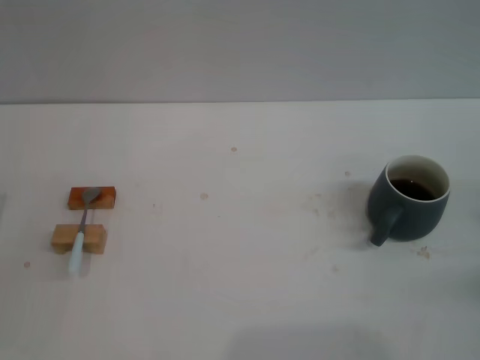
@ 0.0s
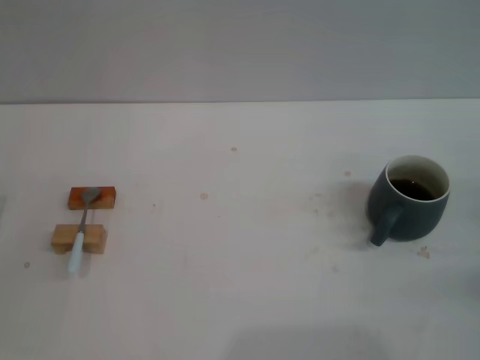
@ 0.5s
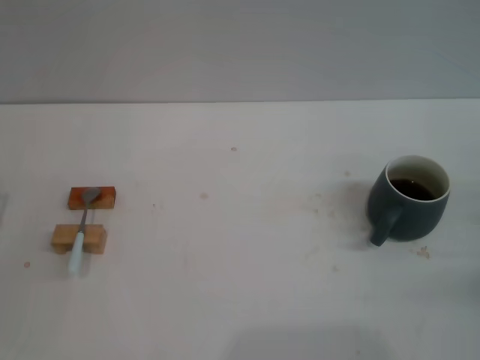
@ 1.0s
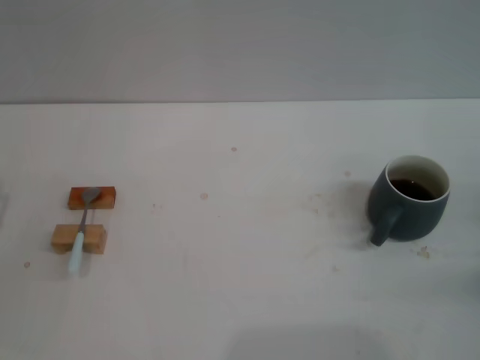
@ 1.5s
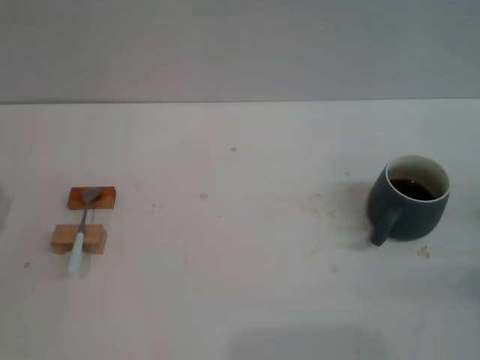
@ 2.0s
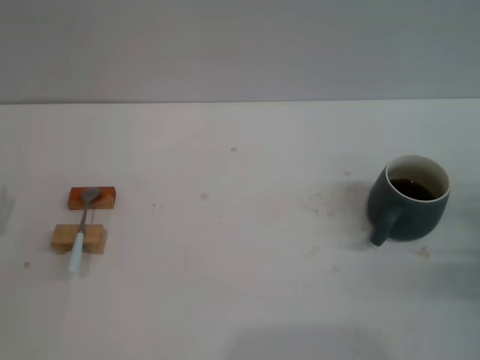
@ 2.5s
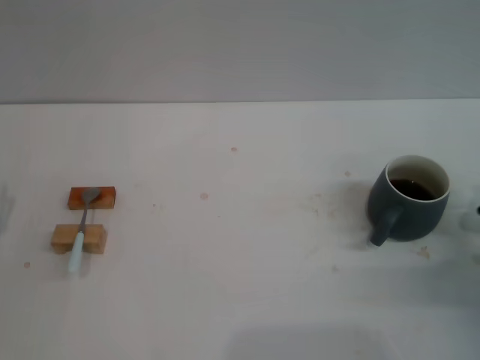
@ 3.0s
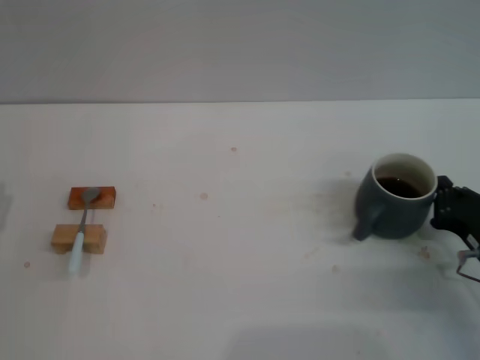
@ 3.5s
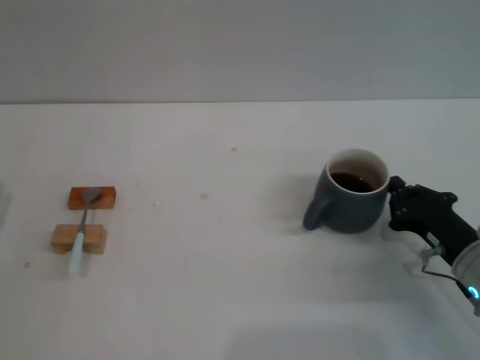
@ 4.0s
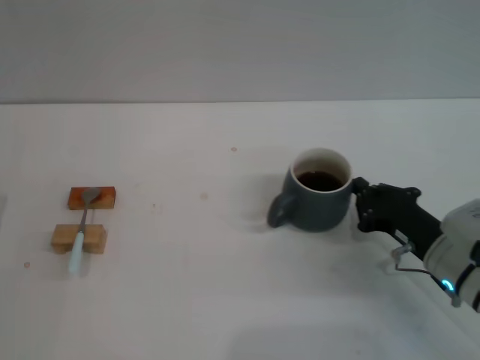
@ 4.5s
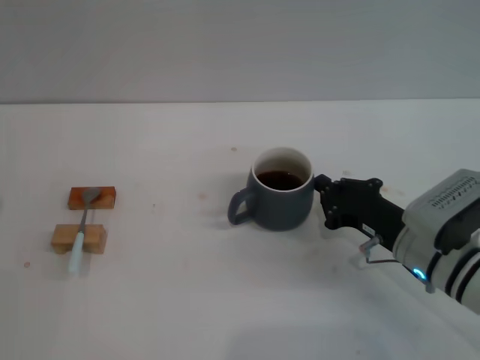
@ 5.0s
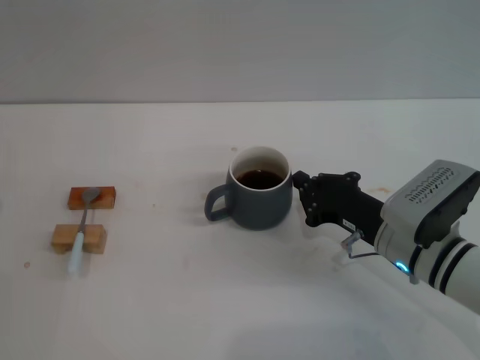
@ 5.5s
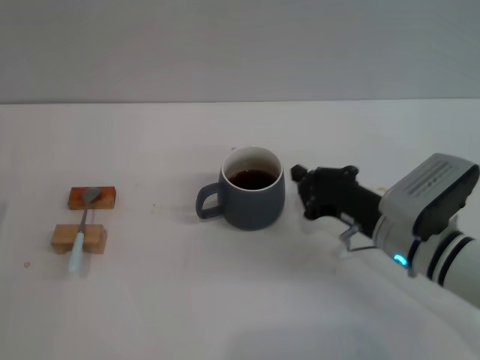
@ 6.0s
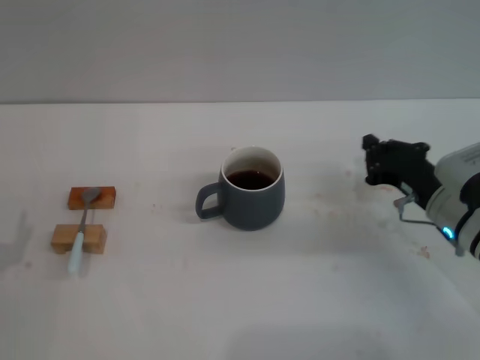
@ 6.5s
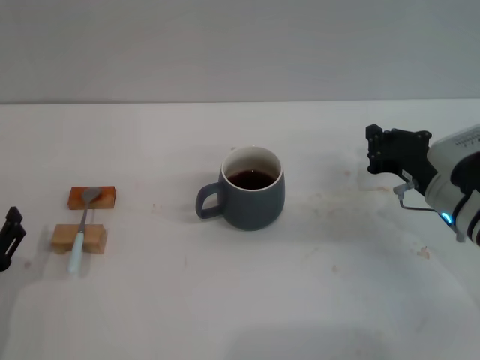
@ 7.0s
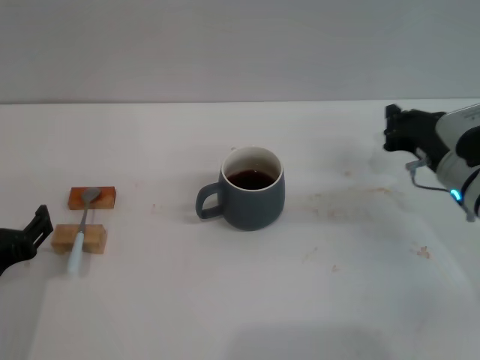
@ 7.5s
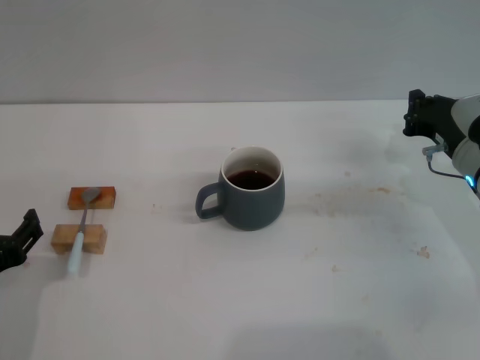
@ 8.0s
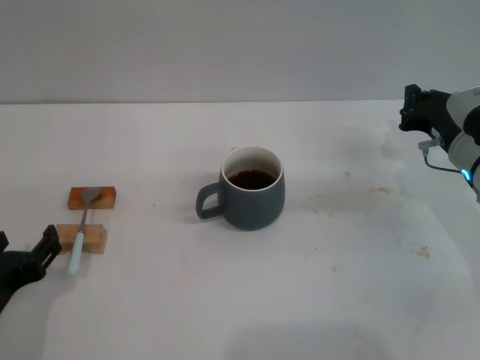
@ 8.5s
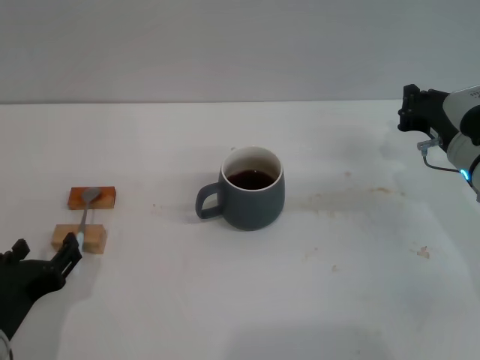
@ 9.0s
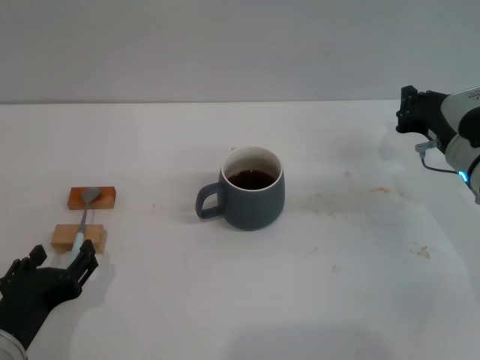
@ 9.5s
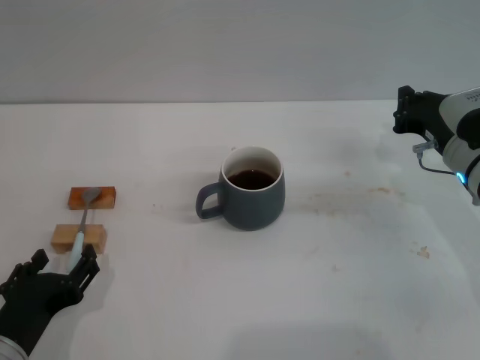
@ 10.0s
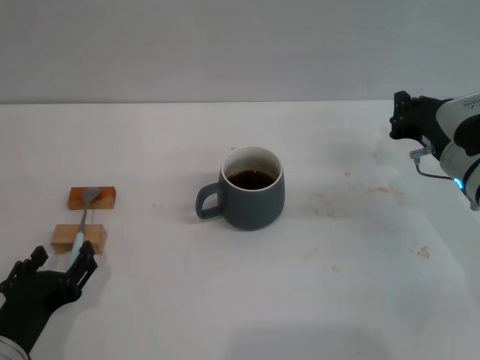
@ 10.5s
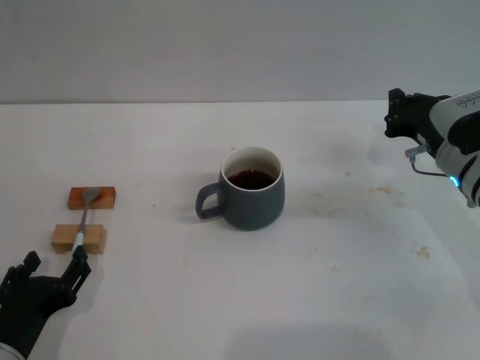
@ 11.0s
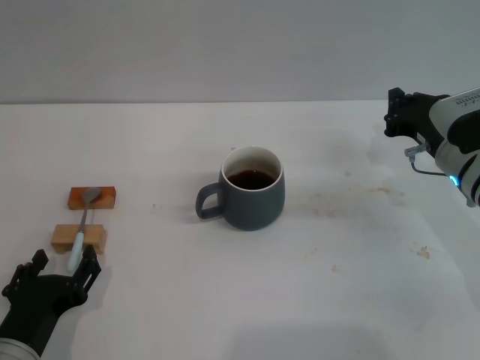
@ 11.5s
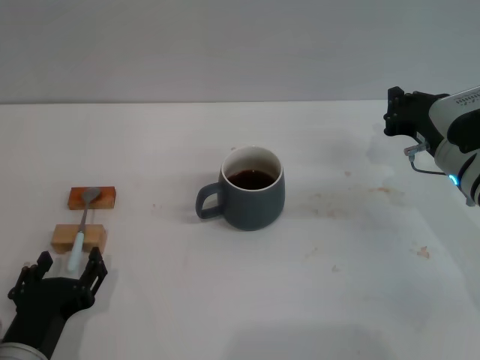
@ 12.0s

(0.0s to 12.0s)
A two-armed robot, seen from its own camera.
Task of the whole recording: Move the grey cup to the center, lift the blue spoon, stir it three times in the cup, and put the spoon into the cup.
Step, 0.0s - 6.0s: Move the cup with coffee to the center of view with the right gripper.
2.0s - 4.0s: The right gripper travels to the left by some 10 cm.
4.0s - 6.0s: The right gripper goes about 5 cm to the left.
6.0s - 8.0s: The left gripper goes approximately 10 cm to the right and upward, while the right gripper moves to the right and forward, approximately 10 cm.
8.0s - 10.0s: The left gripper ends up roughly 5 cm from where it was.
10.0s - 12.0s: There are only small adjustments of the grippers.

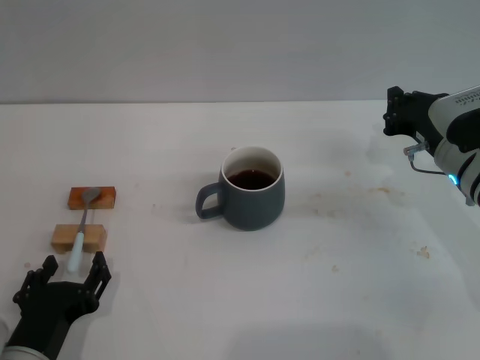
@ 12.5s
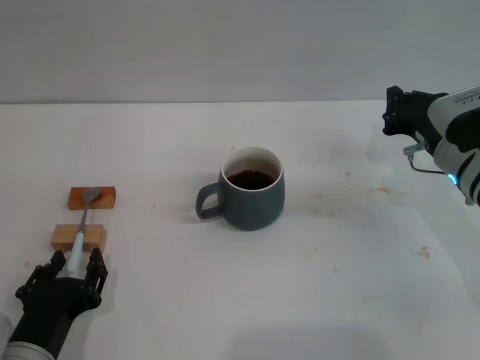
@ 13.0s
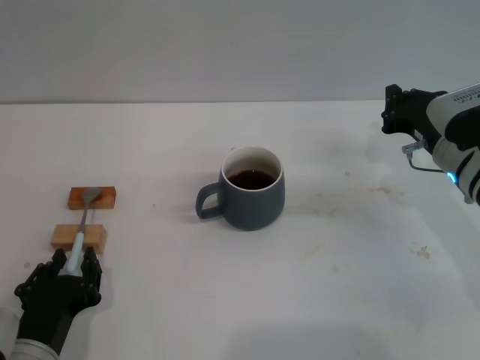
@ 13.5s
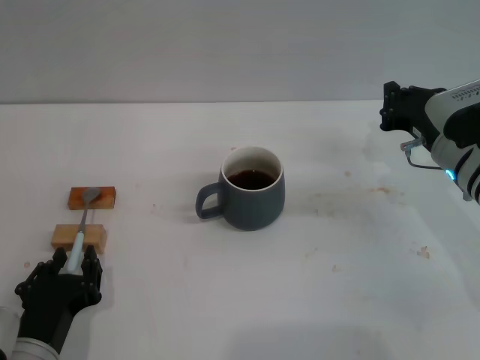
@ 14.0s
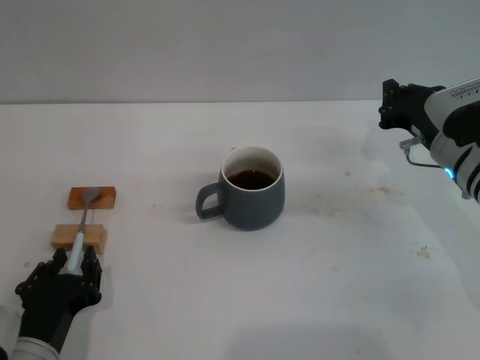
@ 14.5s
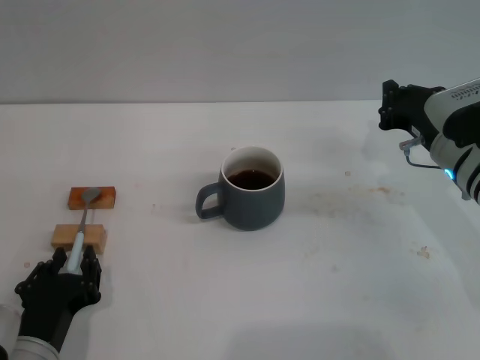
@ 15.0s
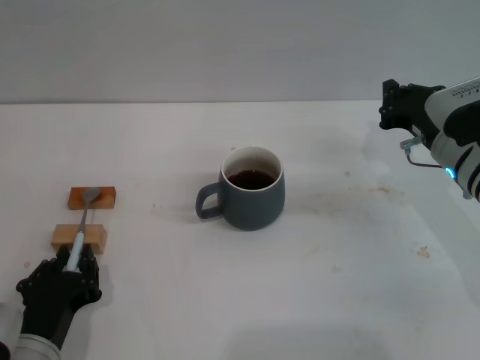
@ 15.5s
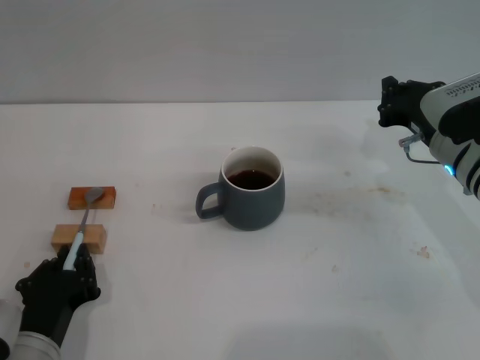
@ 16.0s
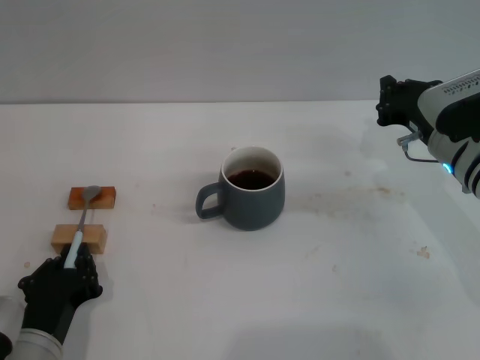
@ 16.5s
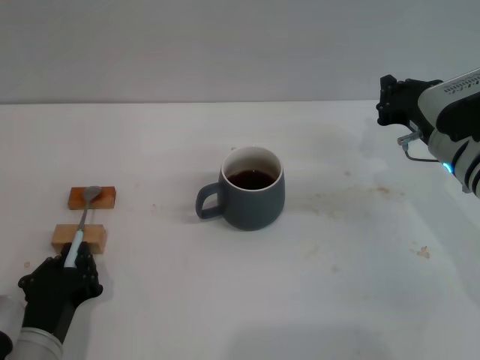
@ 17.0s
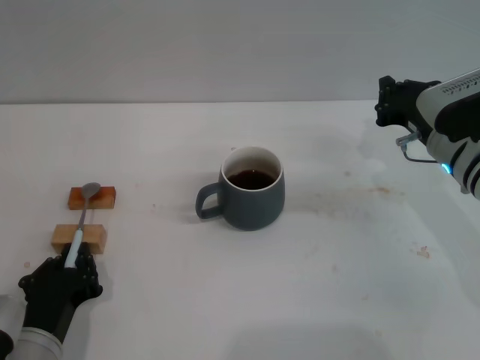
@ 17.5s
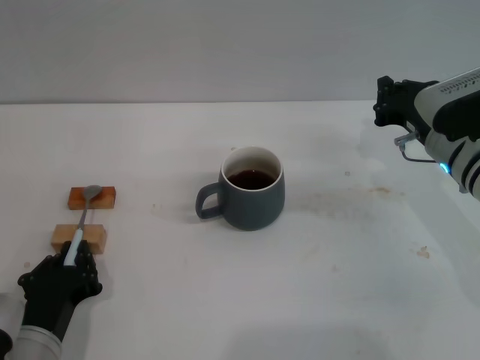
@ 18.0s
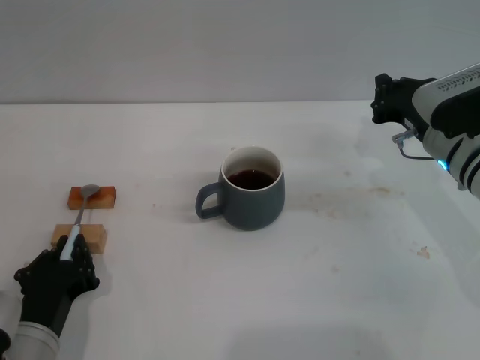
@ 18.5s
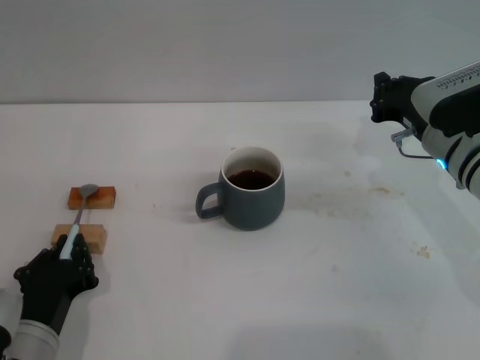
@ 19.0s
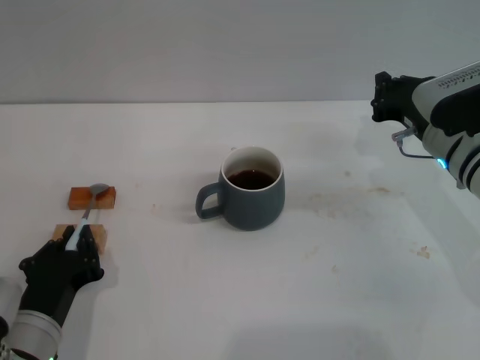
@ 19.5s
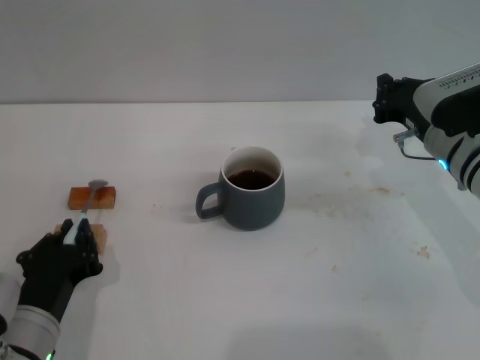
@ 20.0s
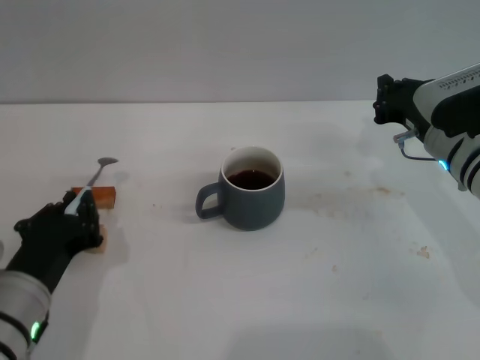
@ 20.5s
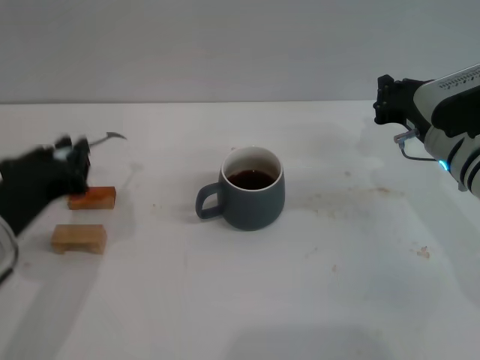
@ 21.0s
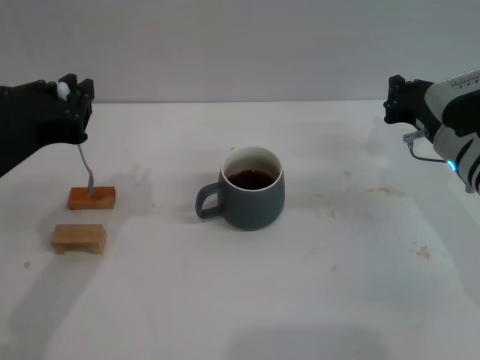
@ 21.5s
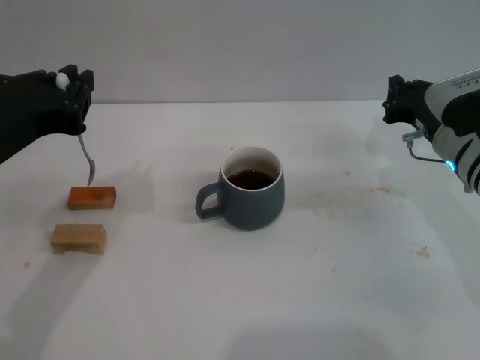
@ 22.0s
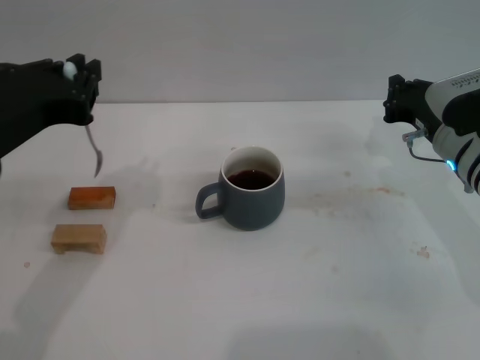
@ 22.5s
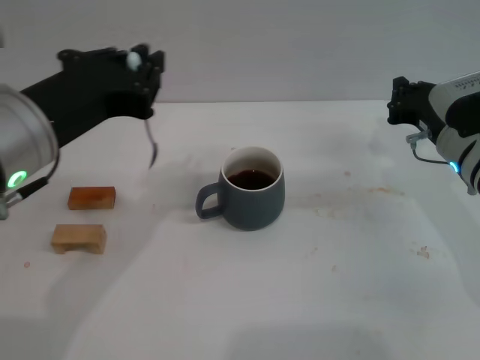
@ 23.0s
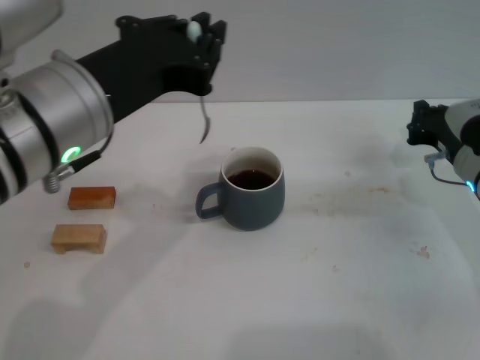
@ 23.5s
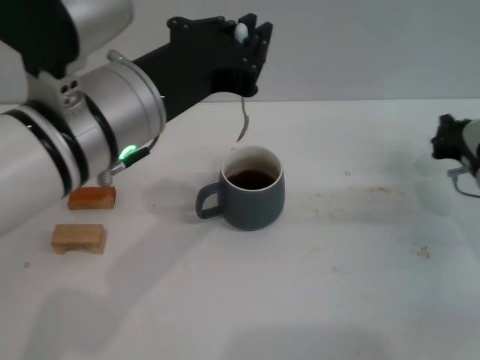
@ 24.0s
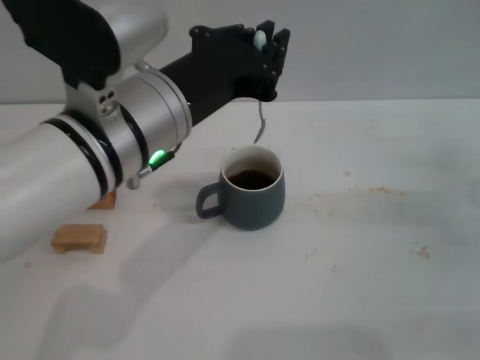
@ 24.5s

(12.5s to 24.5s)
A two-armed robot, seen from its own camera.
Task of the whole recording: Move the grey cup to the center, lift the blue spoon, stir it three times in the cup, and put the spoon into the cup.
Step, 12.5s - 20.0s: Pick up the spoon with the left gripper.
12.5s - 14.5s: The left gripper closes.
14.5s - 16.5s: The left gripper closes its fingers.
16.5s - 18.5s: Both grippers stay put.
18.5s - 20.5s: The left gripper moves upward, about 5 cm.
20.5s - 22.5s: The left gripper is displaced upward by some 15 cm.
22.5s - 24.5s: Both grippers move to the right, roughly 10 cm.

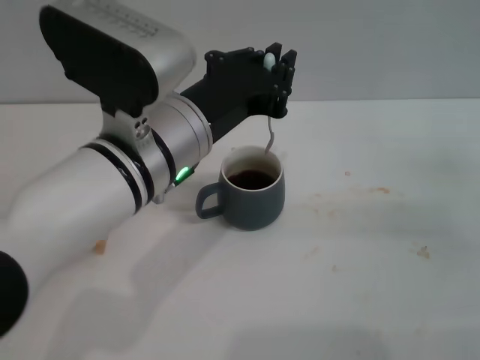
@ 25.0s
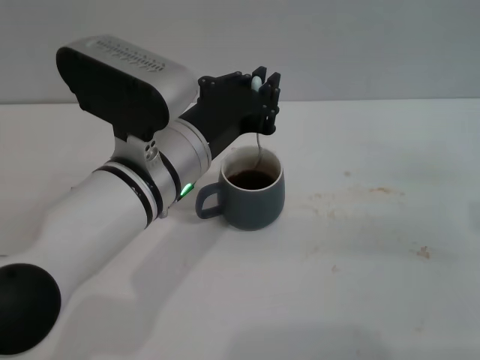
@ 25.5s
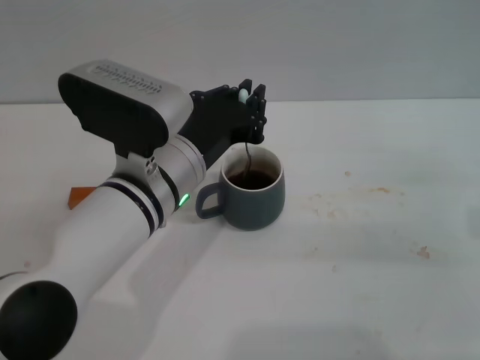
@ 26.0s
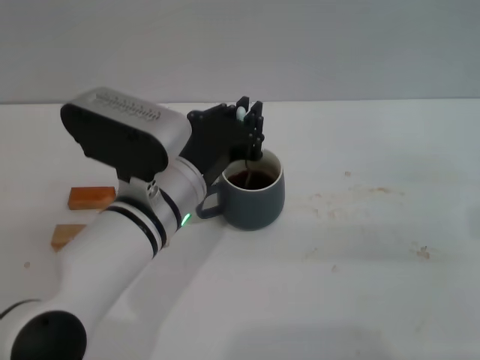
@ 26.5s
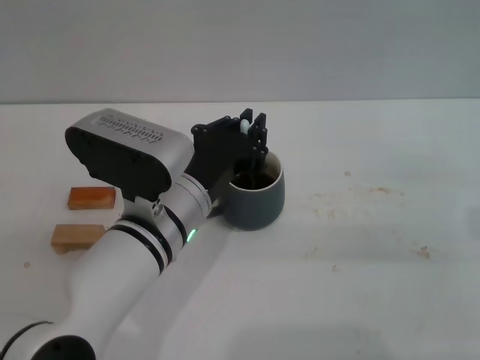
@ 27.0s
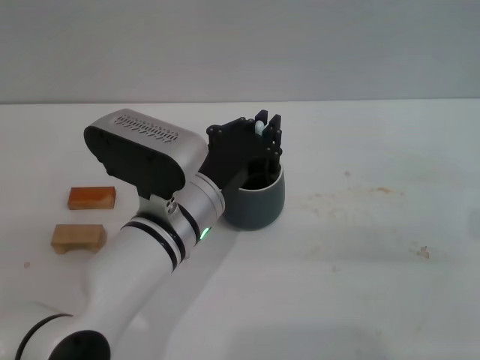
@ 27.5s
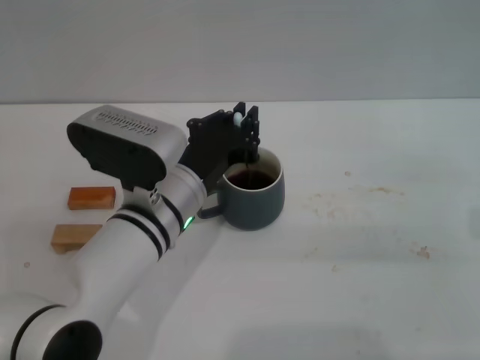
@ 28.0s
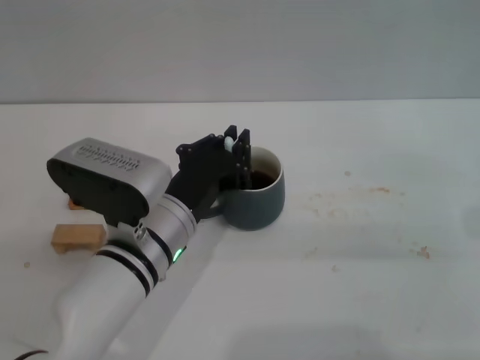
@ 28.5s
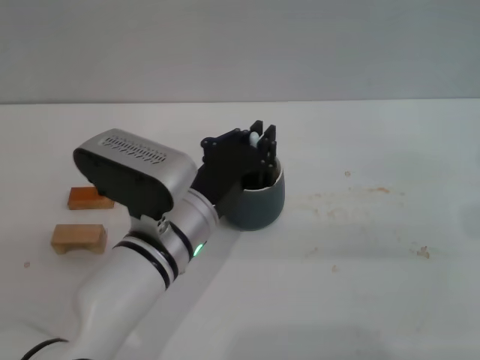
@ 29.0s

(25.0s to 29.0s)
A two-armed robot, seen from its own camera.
Task of the whole recording: Move the grey cup to the center, lift the blue spoon, stir it three times in the cup, and put the spoon into the cup.
25.0s - 27.0s: The right gripper ends up approximately 5 cm from where it was. The left gripper goes approximately 10 cm downward.
27.0s - 29.0s: There are only small adjustments of the grippers.
